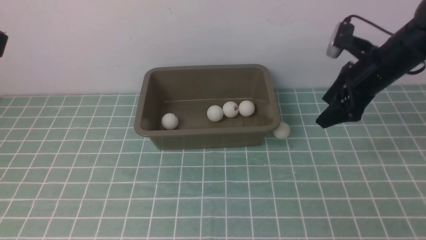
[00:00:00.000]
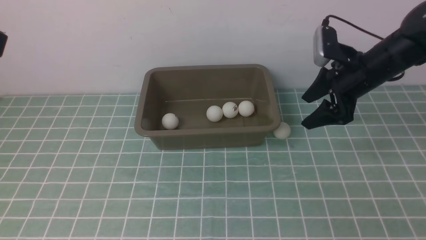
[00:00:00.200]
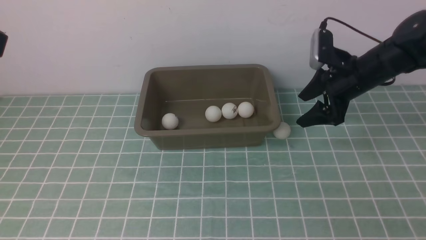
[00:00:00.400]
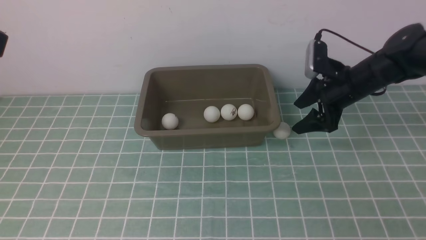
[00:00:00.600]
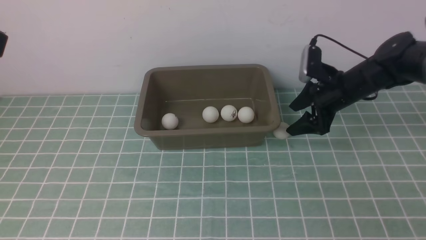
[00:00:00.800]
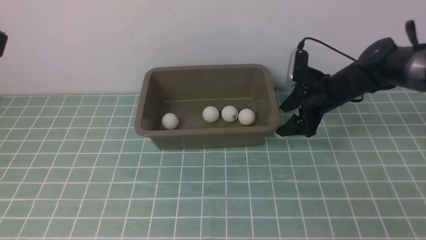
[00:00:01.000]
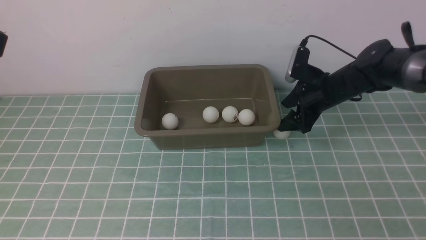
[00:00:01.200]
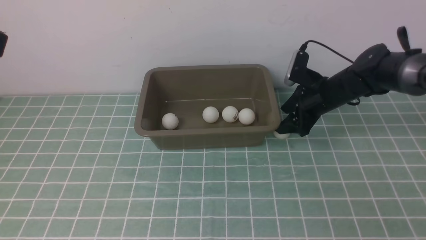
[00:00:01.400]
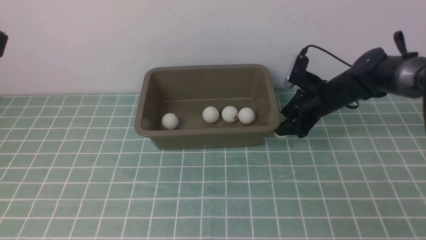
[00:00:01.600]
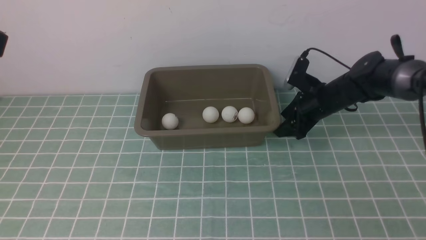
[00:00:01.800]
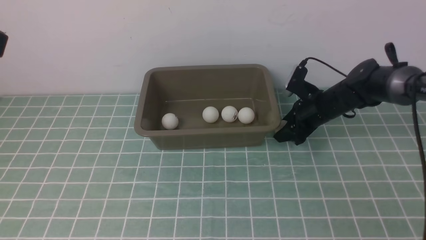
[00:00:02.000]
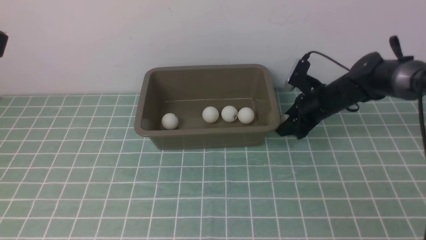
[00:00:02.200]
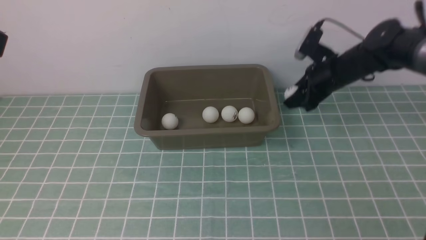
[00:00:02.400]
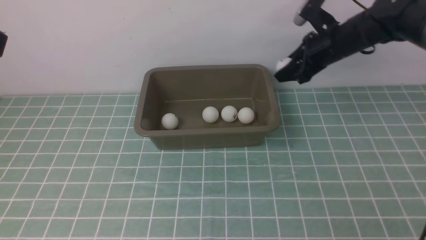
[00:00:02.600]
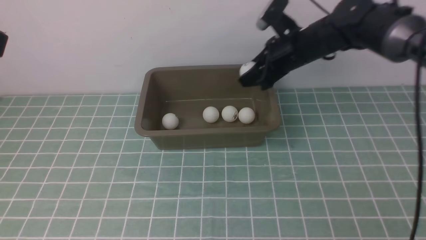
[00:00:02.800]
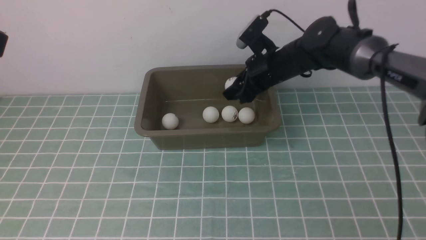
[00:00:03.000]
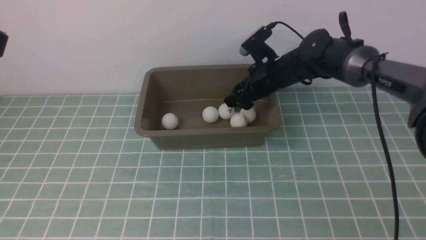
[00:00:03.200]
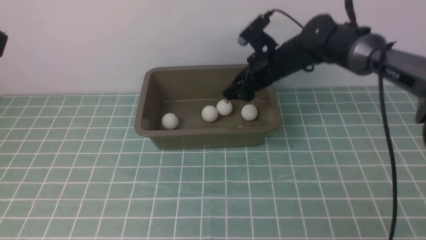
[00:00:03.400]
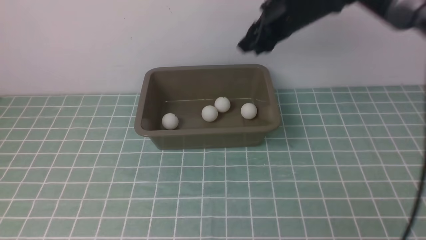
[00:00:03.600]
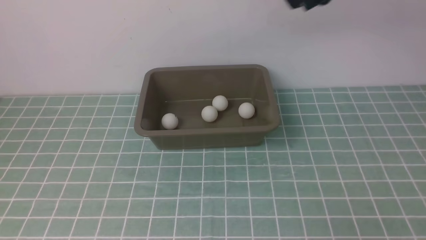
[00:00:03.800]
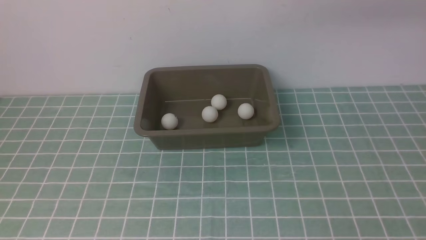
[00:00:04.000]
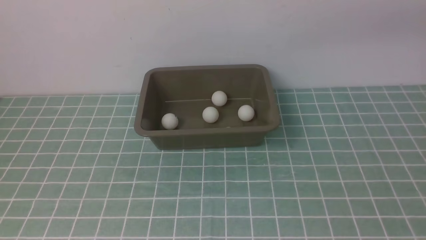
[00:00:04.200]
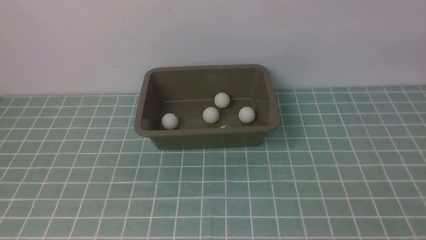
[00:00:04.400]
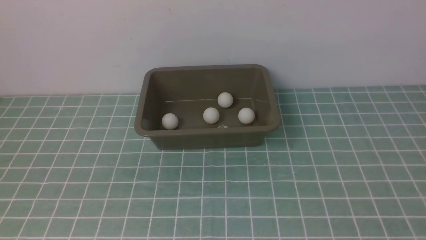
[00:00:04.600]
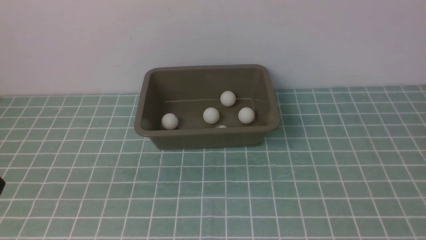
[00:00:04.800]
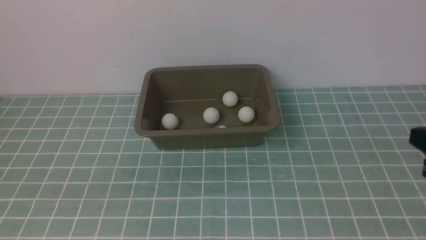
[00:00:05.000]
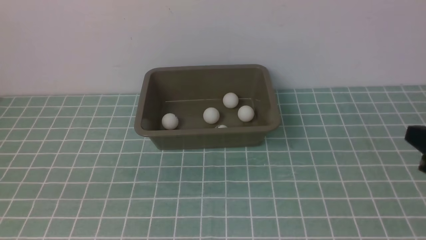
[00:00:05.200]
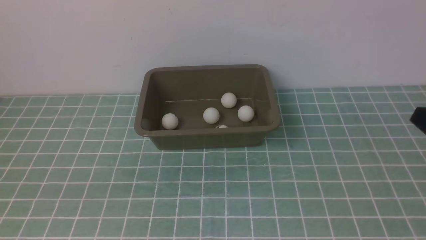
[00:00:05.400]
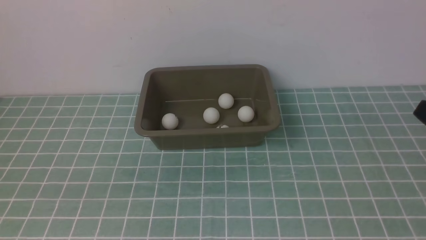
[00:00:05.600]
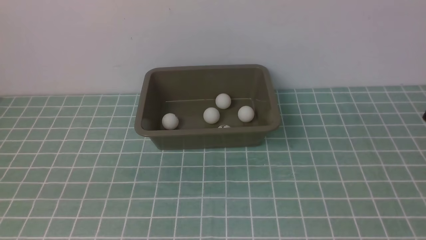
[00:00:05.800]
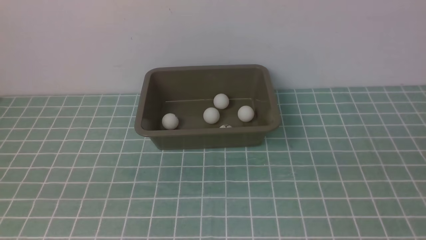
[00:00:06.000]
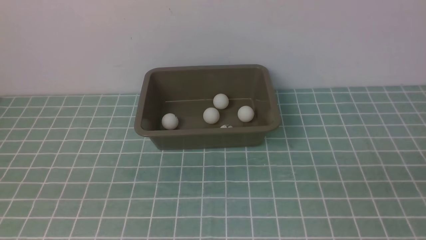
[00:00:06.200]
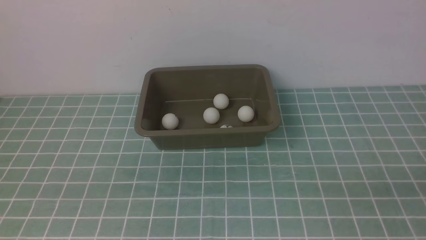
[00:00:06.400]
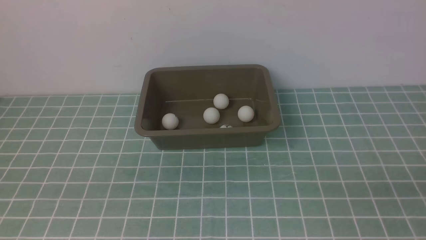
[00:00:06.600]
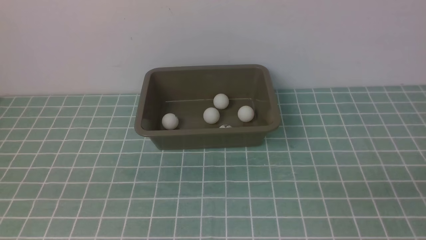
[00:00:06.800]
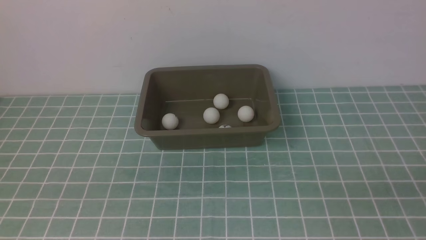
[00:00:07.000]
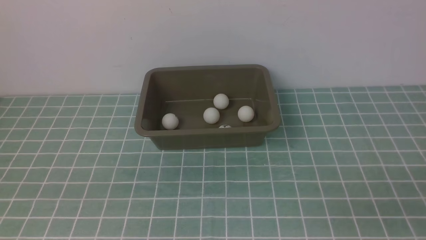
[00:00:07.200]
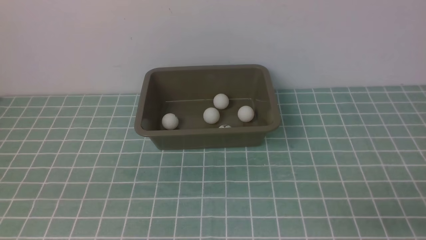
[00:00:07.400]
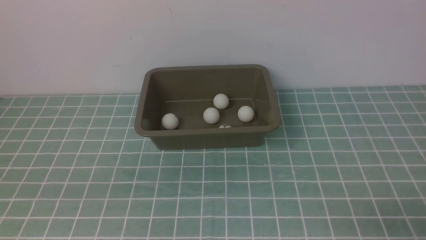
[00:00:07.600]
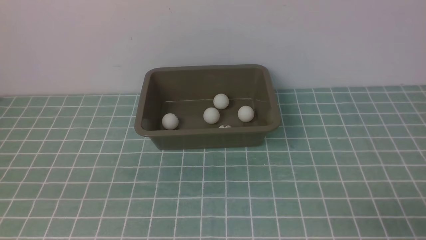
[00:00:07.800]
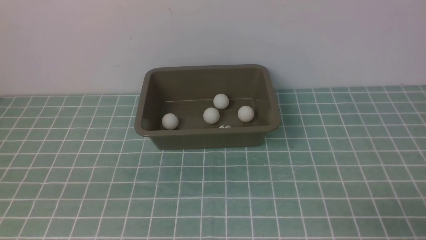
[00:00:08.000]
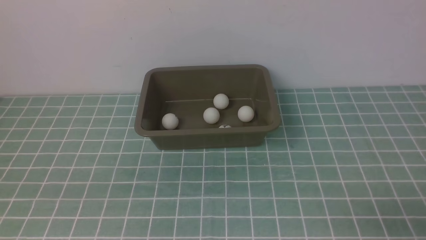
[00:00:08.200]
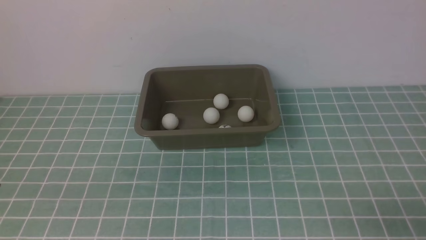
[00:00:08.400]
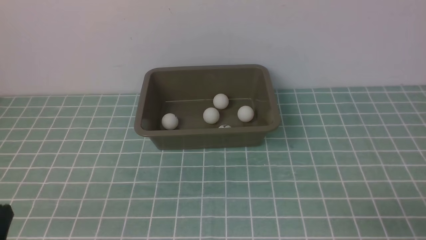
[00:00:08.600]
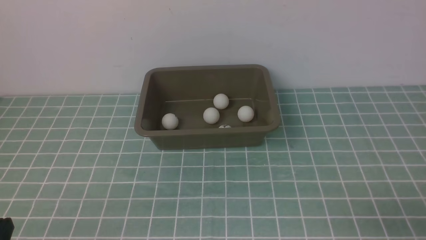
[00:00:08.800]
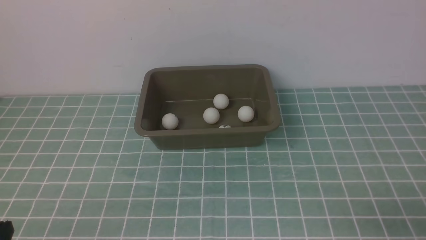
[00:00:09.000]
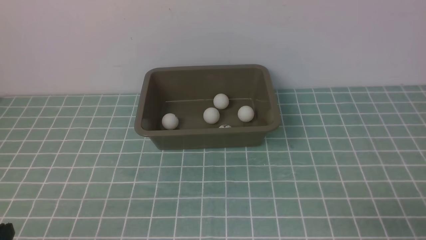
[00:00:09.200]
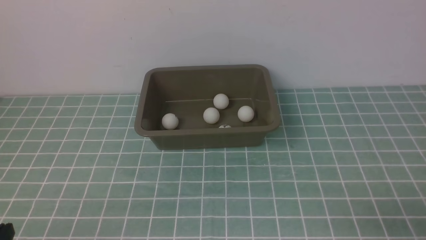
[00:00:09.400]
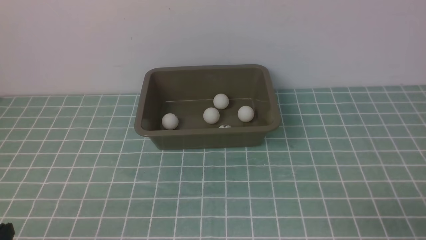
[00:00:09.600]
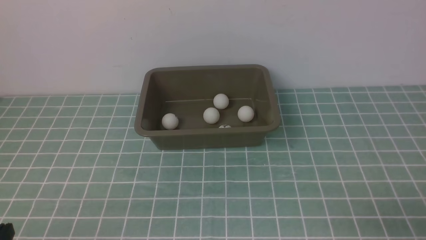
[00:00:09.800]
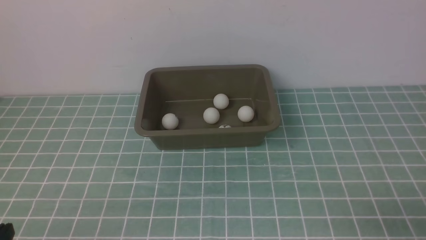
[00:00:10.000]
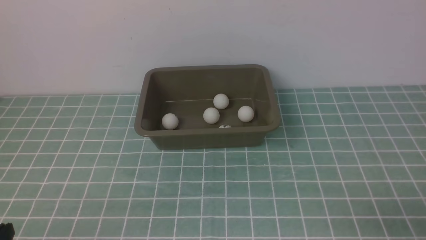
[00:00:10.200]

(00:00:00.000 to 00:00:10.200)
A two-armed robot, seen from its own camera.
Step, 00:00:00.000 - 00:00:02.200: use the right arm to clamp the table tennis ball closest to it.
Step, 00:00:02.400 - 00:00:03.400: use the right arm to put the table tennis ball into the box.
00:00:00.000 - 00:00:01.400: The right gripper travels downward by approximately 10 cm.
00:00:01.400 - 00:00:03.000: The right gripper heads upward and to the left, covering approximately 20 cm.
00:00:03.000 - 00:00:04.400: The left gripper travels downward by approximately 20 cm, while the right gripper heads backward and to the right, covering approximately 35 cm, and closes up.
00:00:08.800 - 00:00:10.200: The two grippers keep their place.
